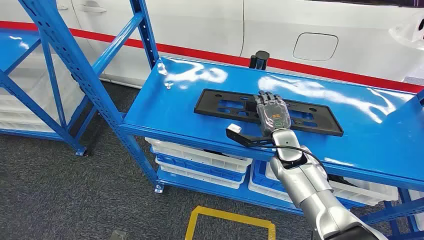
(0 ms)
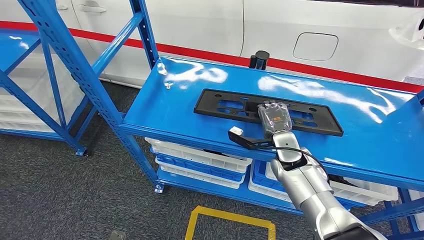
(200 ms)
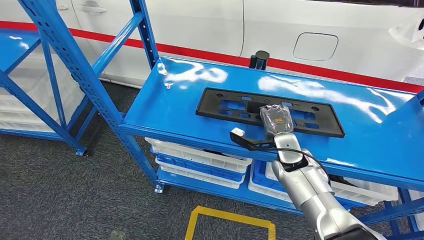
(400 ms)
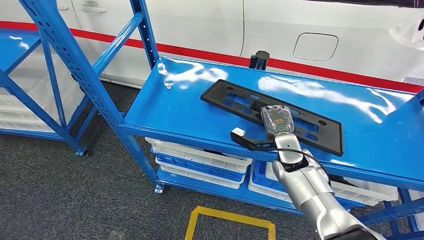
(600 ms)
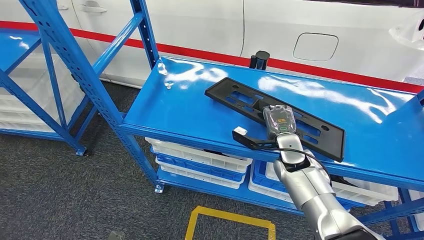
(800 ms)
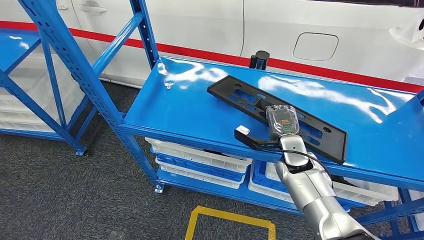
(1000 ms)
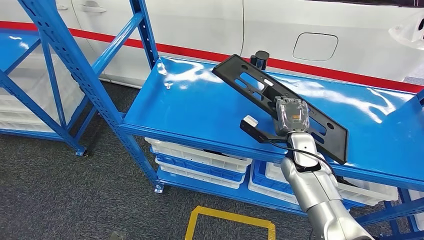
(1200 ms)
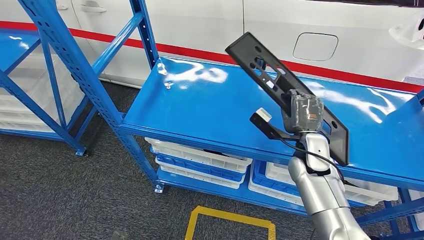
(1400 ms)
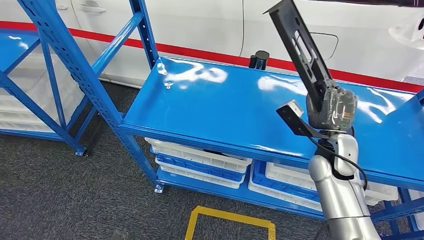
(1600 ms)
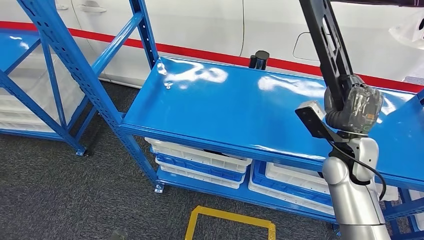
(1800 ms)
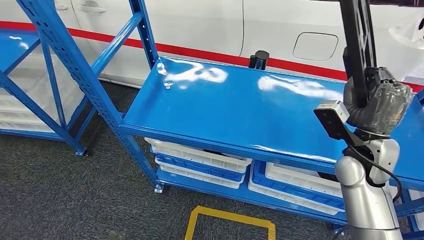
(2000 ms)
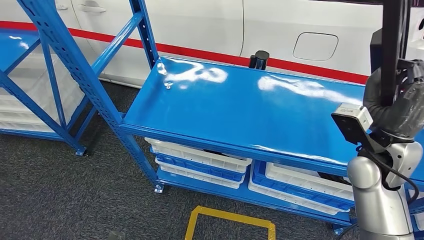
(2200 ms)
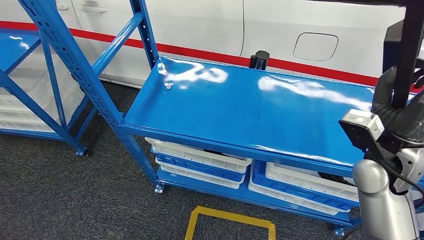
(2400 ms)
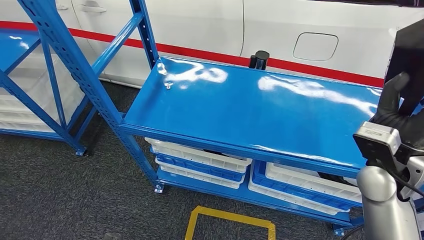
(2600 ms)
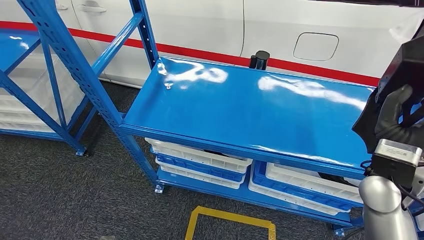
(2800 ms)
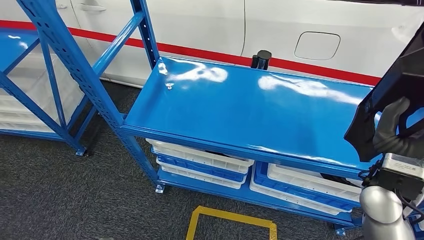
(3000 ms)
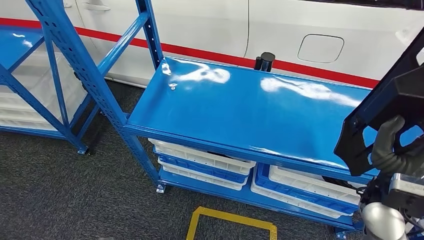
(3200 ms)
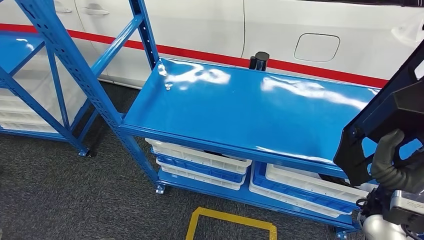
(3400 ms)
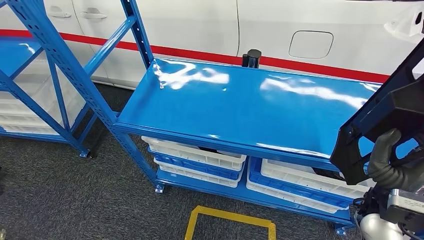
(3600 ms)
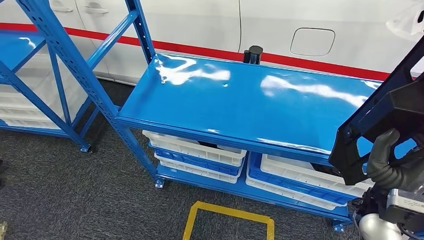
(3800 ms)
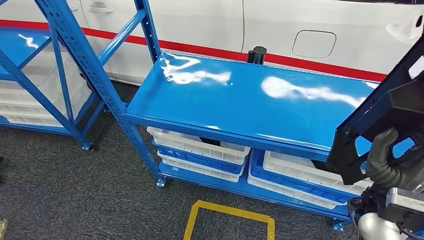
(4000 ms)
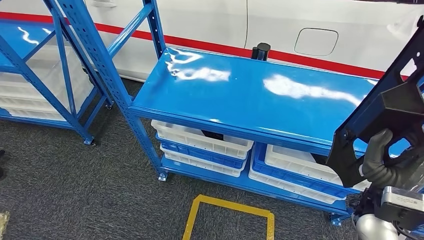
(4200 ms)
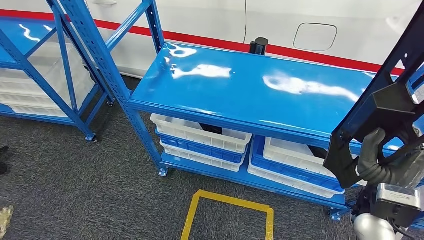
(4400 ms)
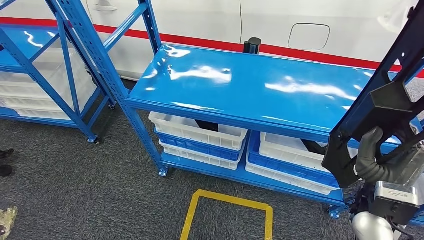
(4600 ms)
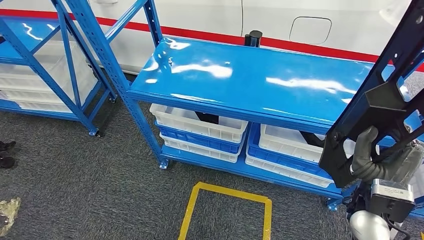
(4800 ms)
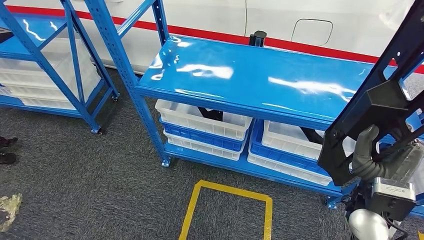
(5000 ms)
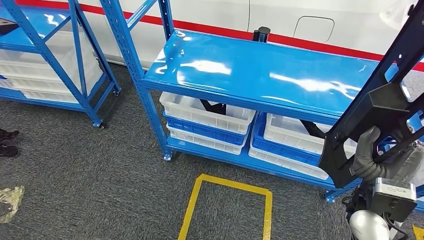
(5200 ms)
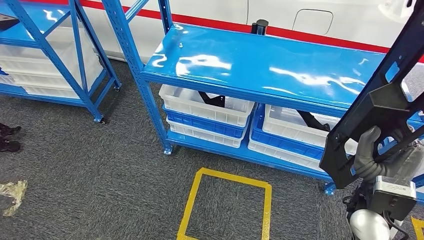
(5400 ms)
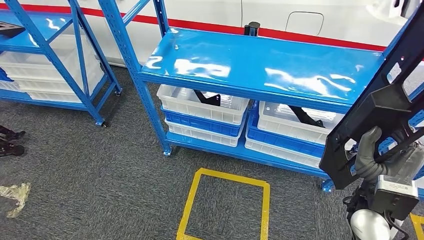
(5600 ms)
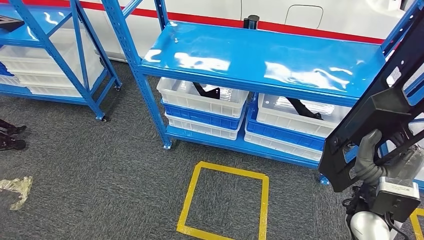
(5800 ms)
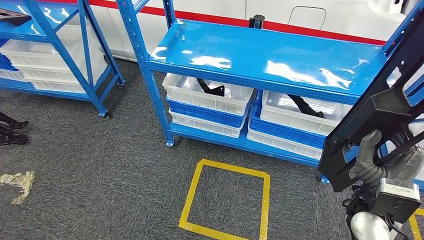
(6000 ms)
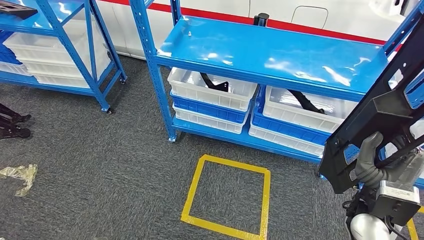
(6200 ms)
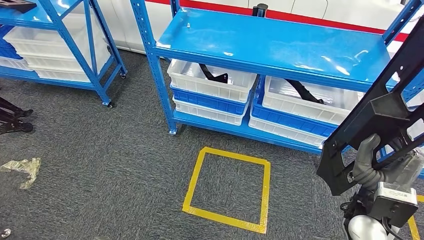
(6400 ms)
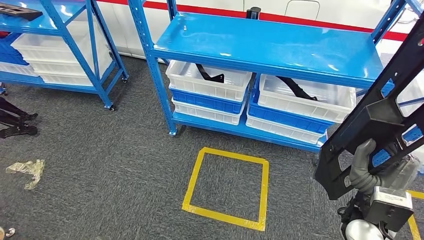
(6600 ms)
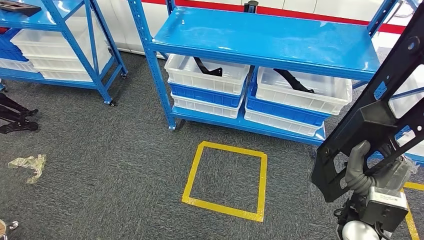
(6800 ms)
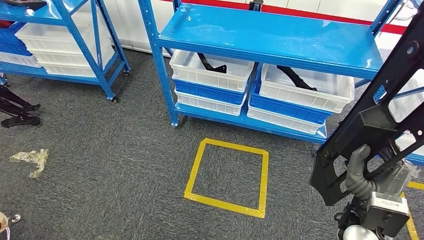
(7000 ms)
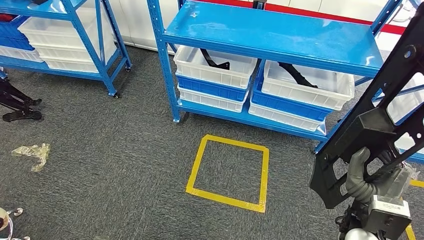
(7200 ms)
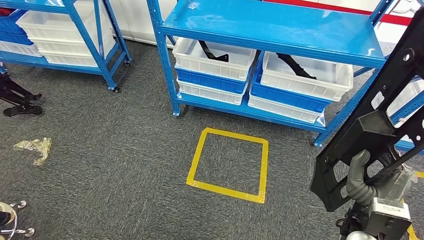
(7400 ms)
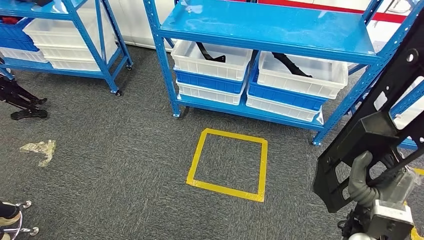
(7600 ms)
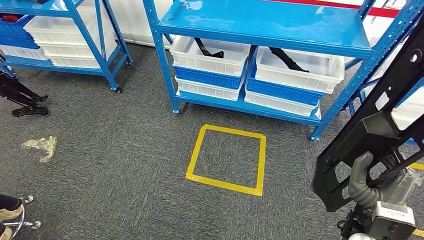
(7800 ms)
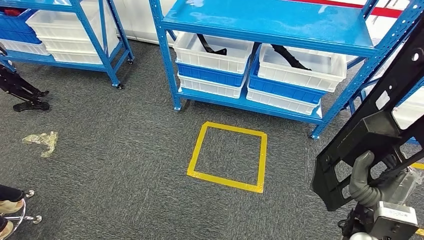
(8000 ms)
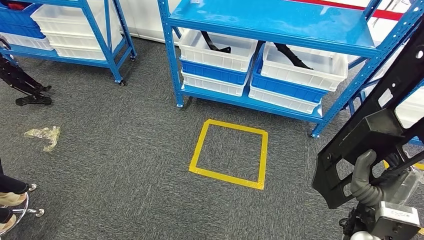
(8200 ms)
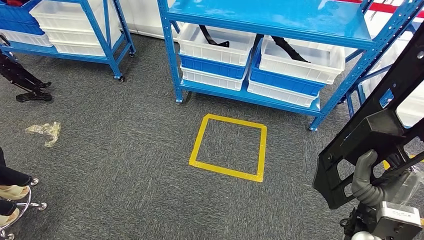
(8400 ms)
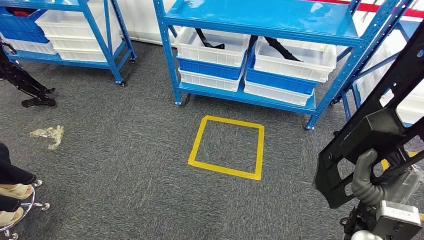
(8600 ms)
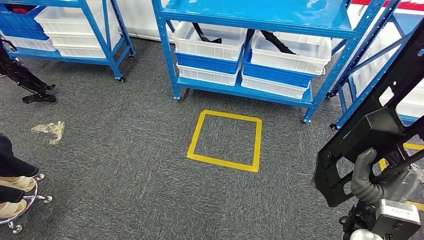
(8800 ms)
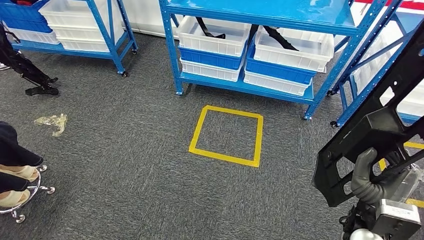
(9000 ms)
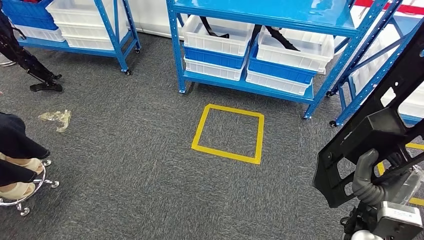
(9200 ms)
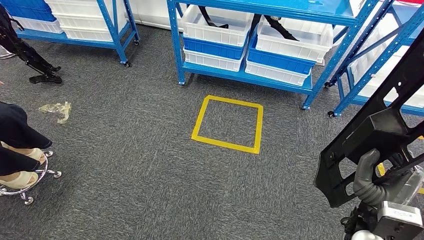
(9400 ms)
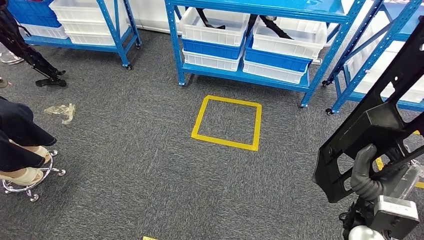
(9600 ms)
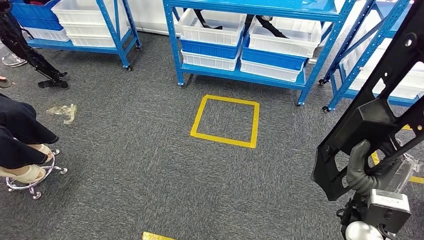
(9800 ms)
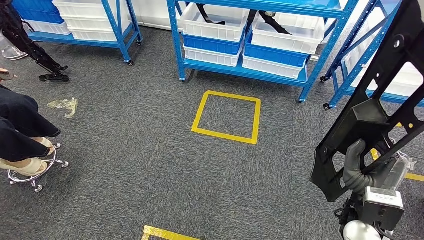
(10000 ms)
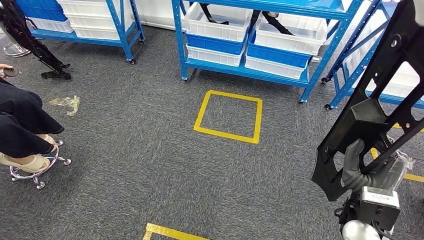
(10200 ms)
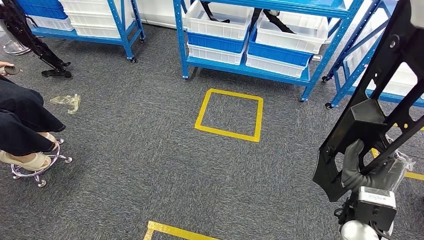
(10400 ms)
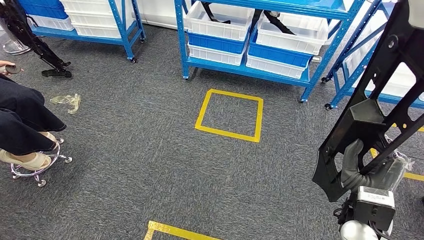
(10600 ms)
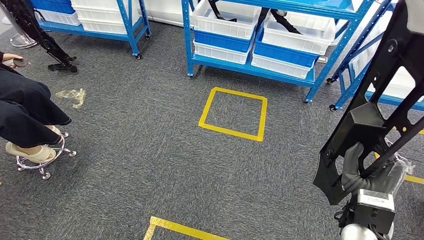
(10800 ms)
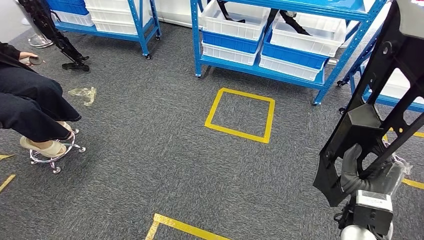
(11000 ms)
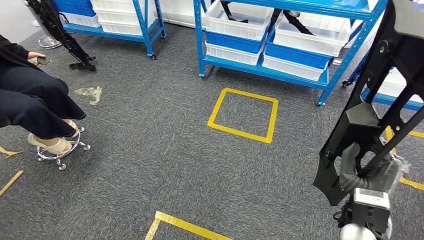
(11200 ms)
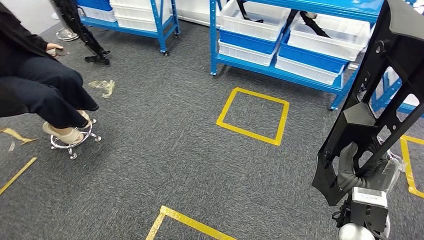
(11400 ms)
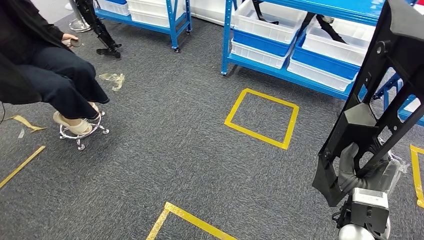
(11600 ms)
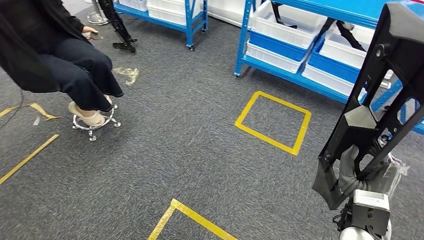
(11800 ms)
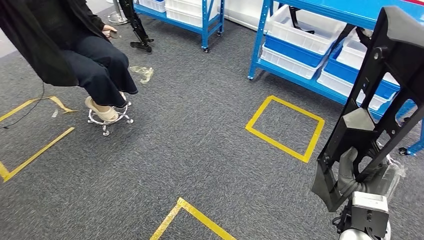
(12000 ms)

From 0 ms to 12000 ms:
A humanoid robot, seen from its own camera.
Step, from 0 ms to 3200 ms: Pick up the large material from the shelf.

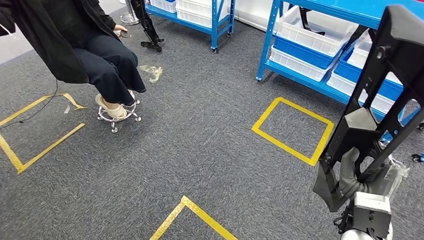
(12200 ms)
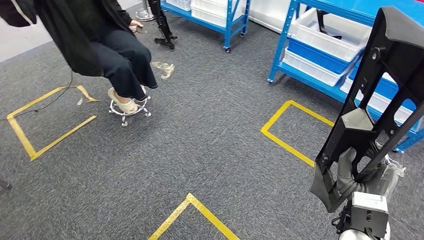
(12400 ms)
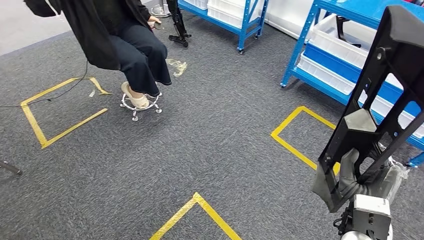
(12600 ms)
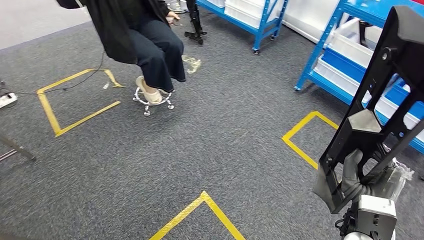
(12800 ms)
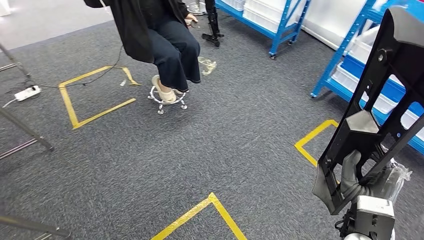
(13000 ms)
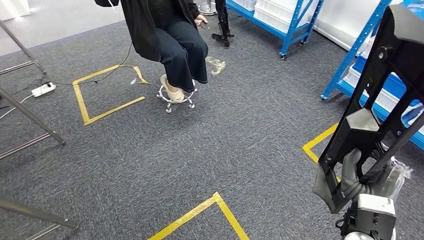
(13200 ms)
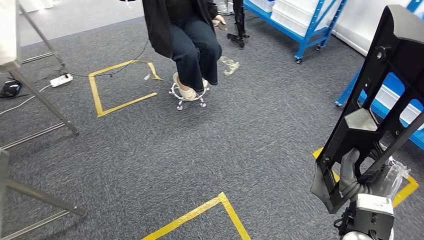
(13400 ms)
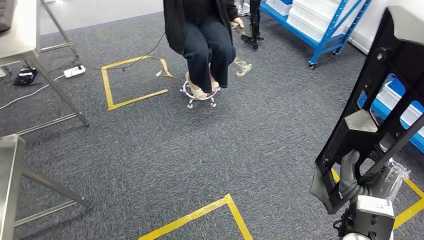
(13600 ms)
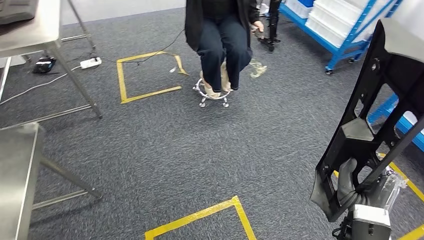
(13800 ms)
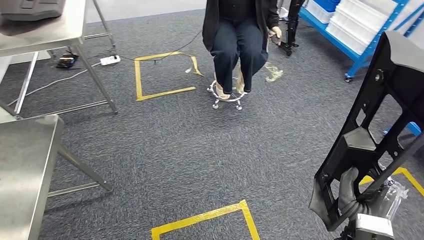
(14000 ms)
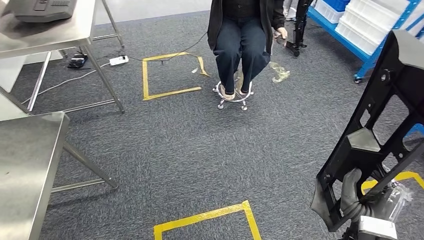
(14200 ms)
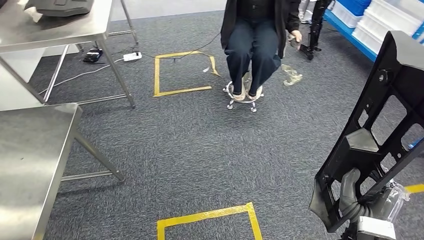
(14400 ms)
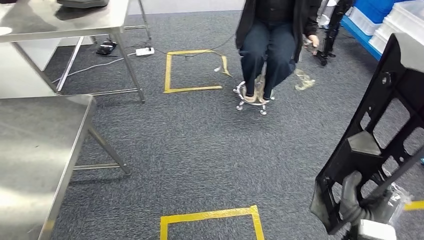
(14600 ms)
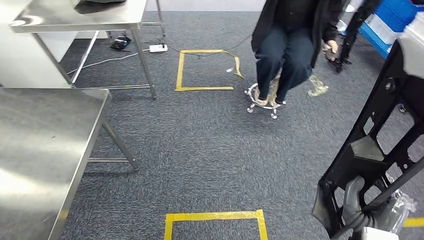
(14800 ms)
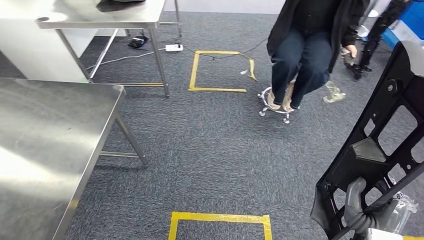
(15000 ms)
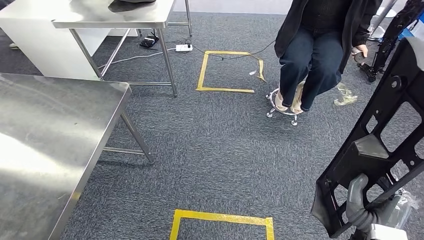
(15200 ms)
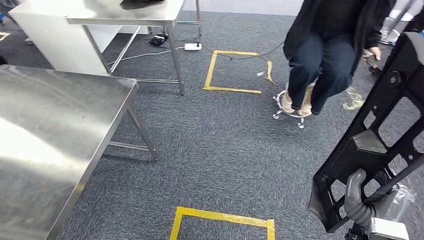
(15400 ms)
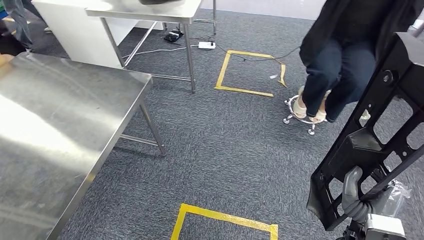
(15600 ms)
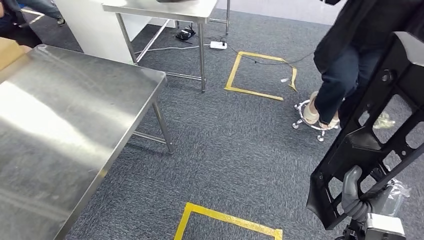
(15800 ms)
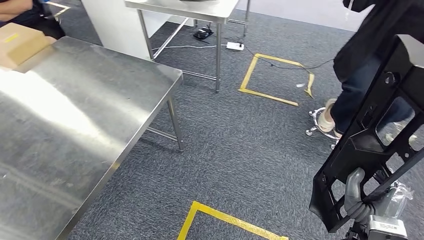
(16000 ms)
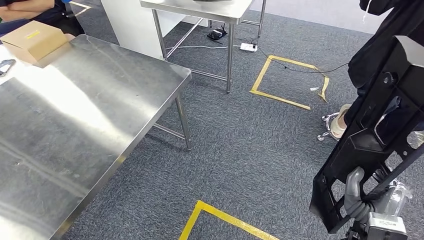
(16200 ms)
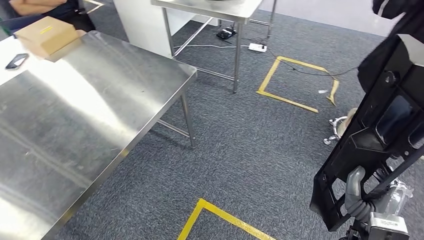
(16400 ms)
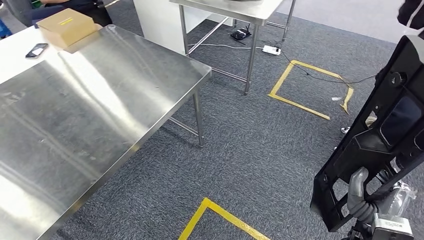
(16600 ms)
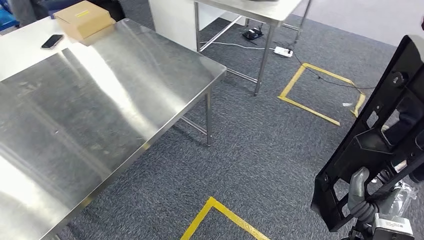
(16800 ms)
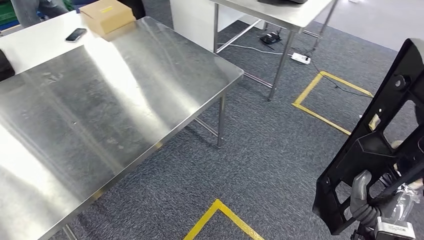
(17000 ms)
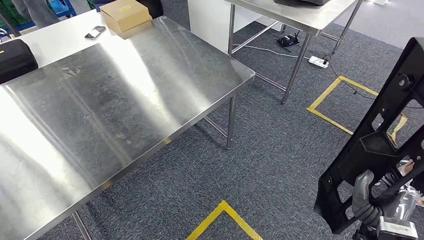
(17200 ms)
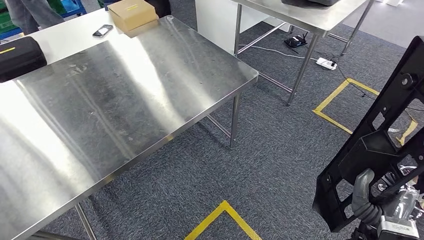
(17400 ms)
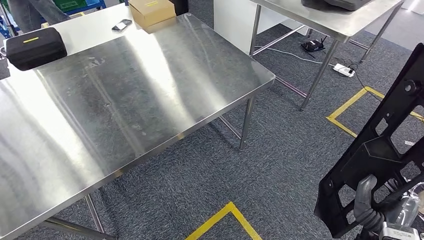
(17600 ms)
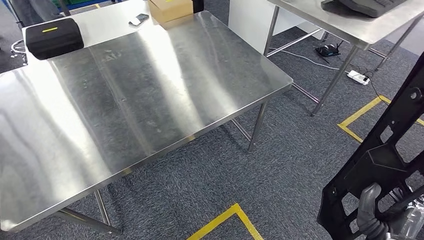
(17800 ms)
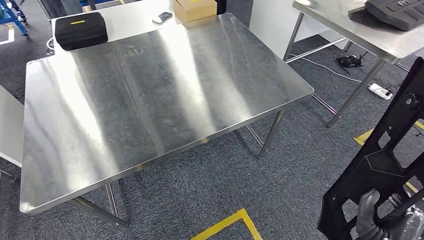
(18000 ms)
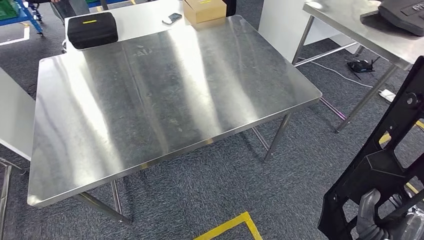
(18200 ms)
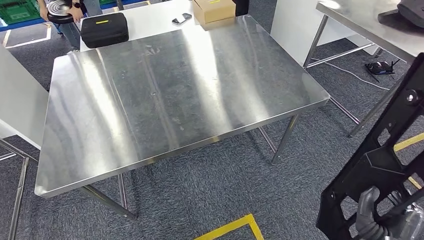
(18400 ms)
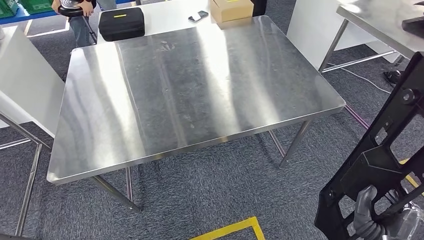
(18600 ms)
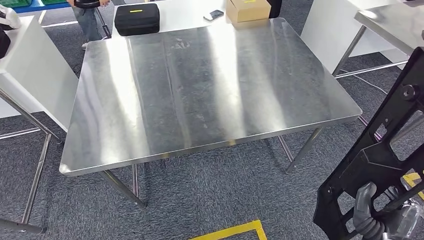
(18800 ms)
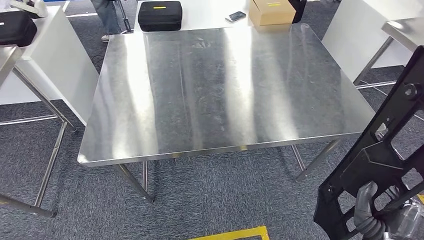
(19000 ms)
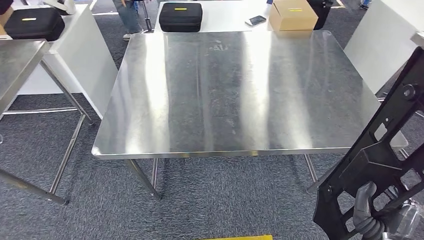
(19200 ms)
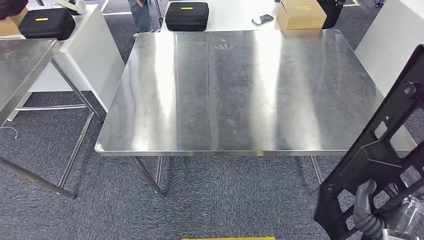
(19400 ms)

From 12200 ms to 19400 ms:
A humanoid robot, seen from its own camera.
Step, from 12200 ms to 19000 ms: Move the large material to the front of the workbench.
